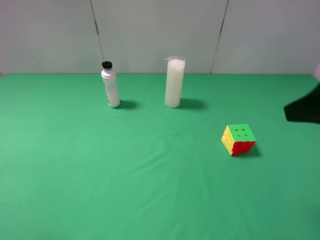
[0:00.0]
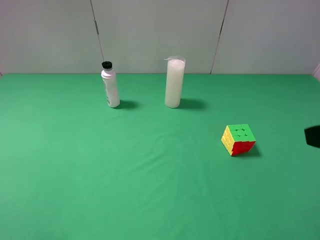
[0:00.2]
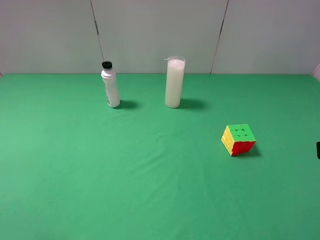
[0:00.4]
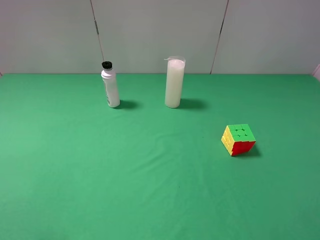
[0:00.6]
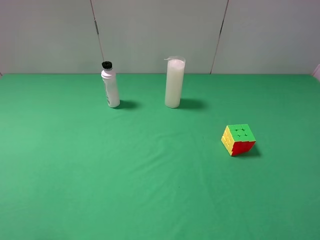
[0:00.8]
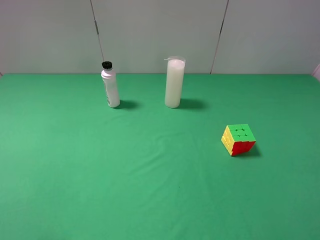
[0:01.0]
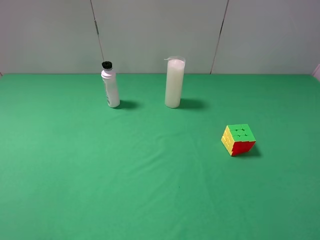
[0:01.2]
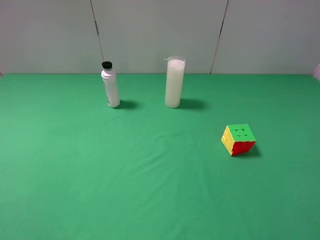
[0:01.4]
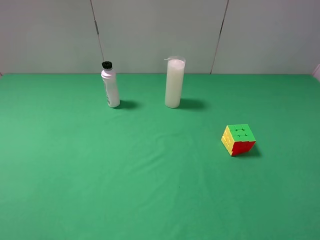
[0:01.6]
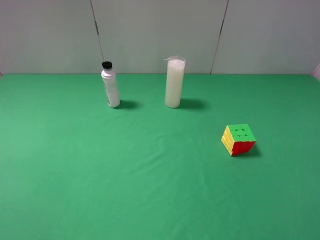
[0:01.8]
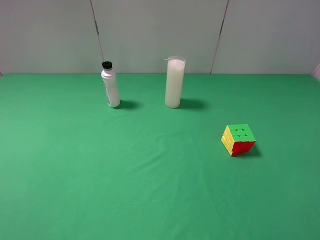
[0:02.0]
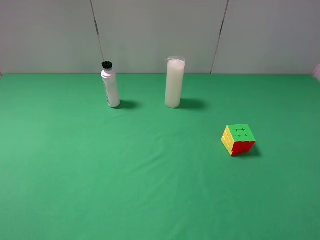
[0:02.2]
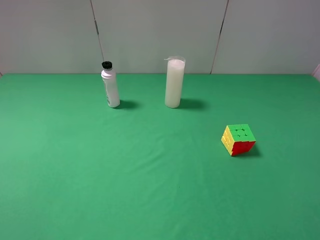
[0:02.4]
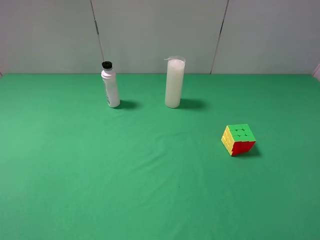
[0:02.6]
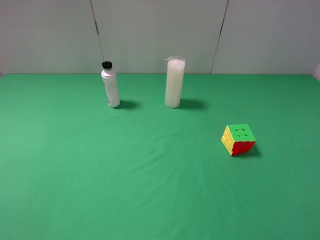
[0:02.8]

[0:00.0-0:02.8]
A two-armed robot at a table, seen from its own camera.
Task of the whole recording: use the left gripper to pick up the item and transfer it from the left gripper to the right gripper.
0:00.0 to 0:01.4: The right gripper shifts approximately 10 cm backward.
